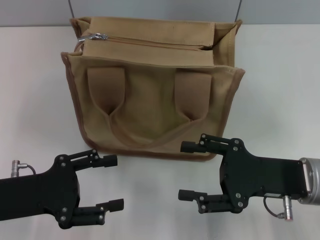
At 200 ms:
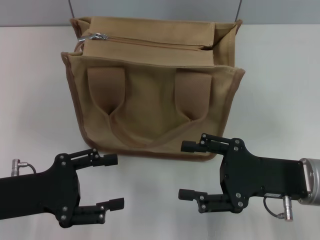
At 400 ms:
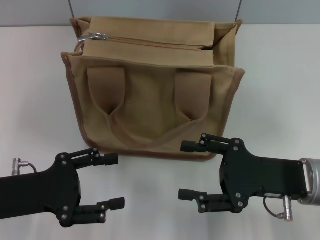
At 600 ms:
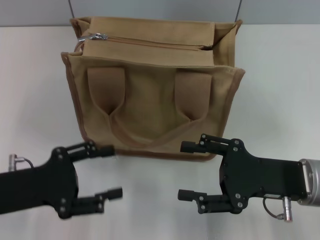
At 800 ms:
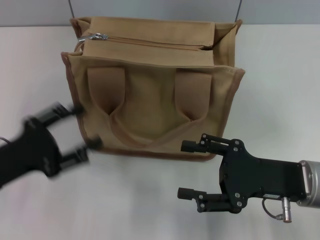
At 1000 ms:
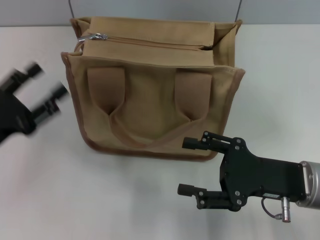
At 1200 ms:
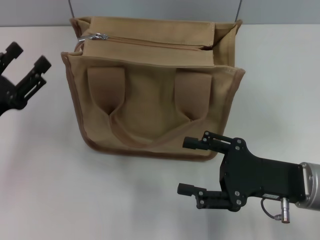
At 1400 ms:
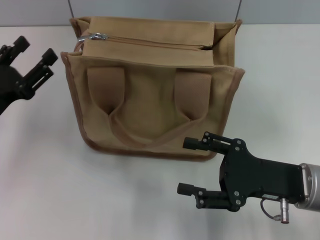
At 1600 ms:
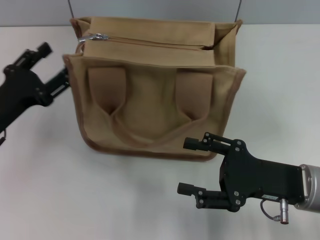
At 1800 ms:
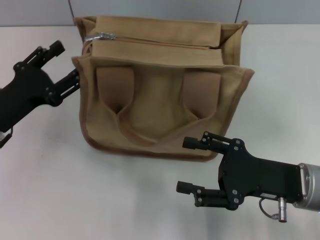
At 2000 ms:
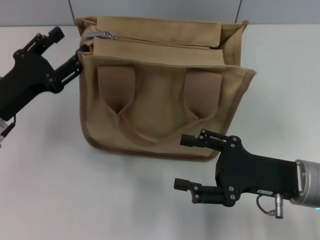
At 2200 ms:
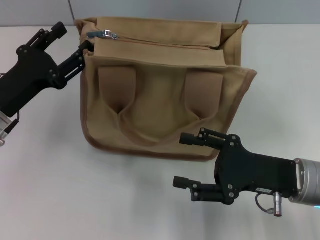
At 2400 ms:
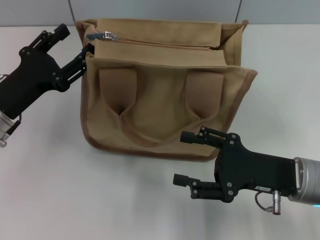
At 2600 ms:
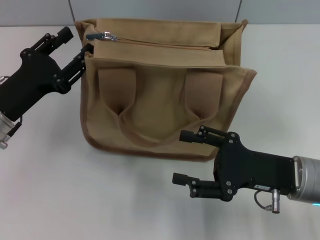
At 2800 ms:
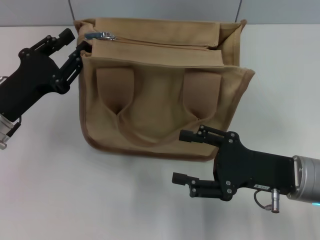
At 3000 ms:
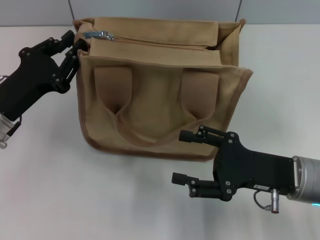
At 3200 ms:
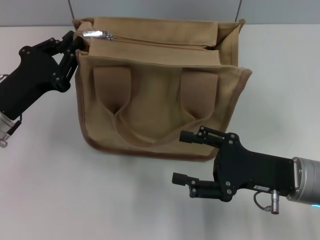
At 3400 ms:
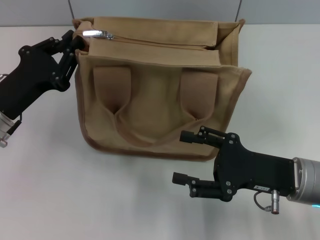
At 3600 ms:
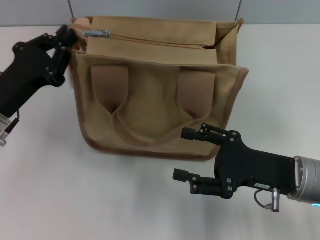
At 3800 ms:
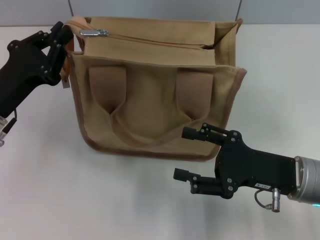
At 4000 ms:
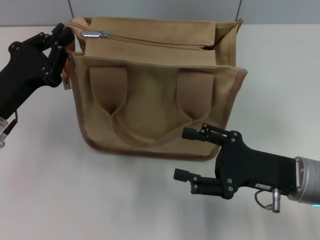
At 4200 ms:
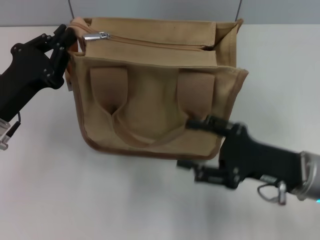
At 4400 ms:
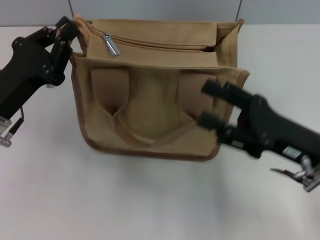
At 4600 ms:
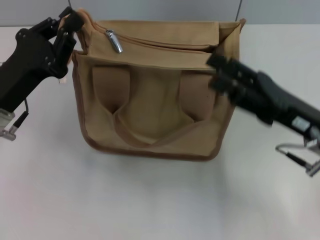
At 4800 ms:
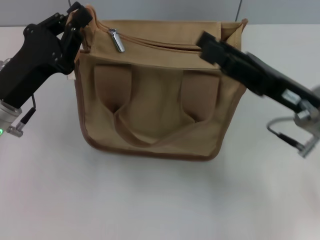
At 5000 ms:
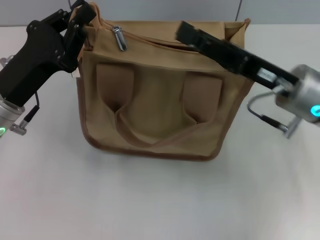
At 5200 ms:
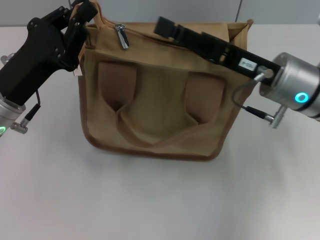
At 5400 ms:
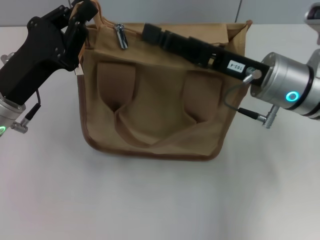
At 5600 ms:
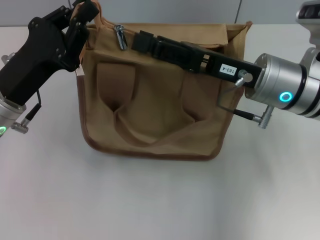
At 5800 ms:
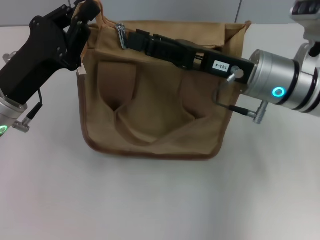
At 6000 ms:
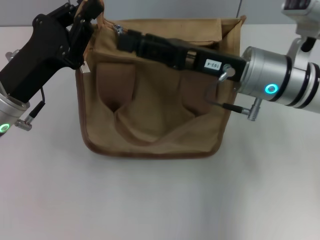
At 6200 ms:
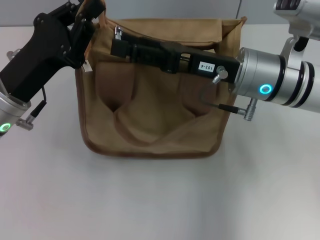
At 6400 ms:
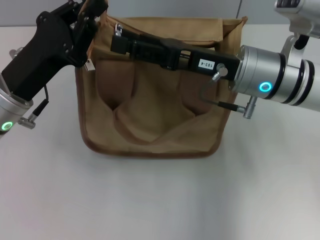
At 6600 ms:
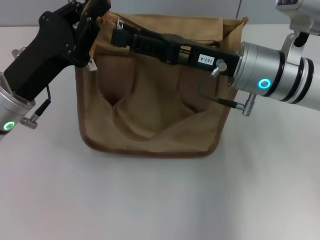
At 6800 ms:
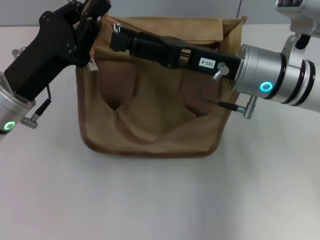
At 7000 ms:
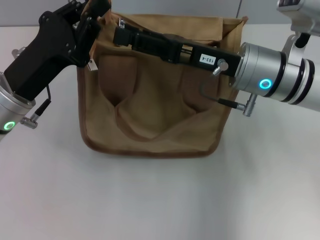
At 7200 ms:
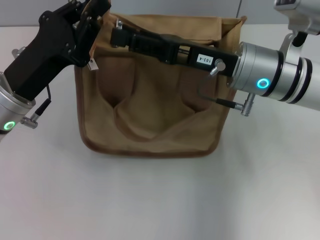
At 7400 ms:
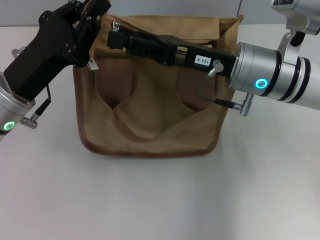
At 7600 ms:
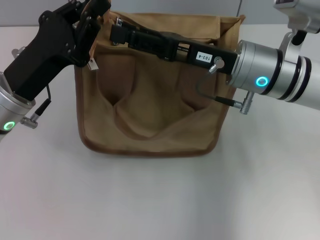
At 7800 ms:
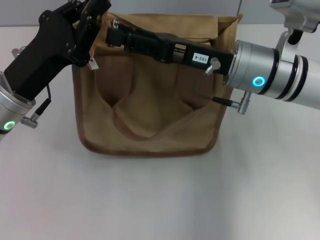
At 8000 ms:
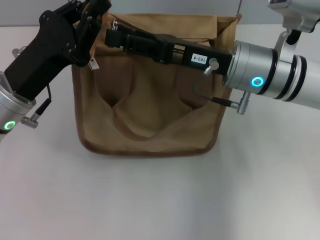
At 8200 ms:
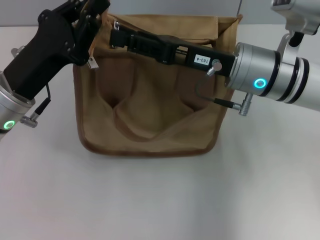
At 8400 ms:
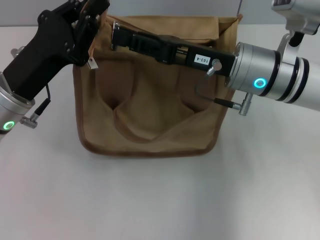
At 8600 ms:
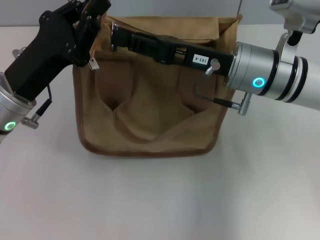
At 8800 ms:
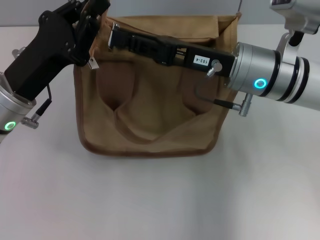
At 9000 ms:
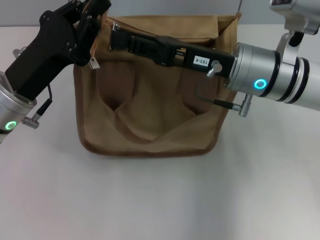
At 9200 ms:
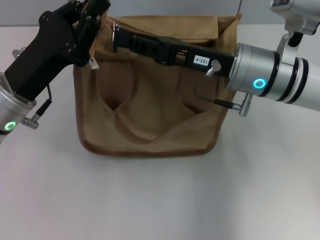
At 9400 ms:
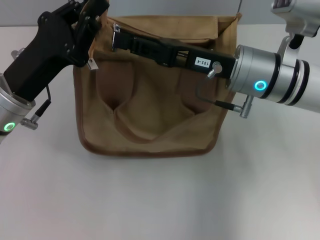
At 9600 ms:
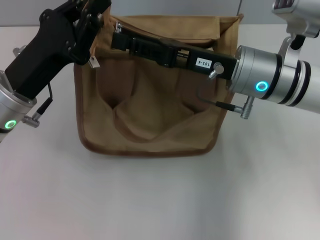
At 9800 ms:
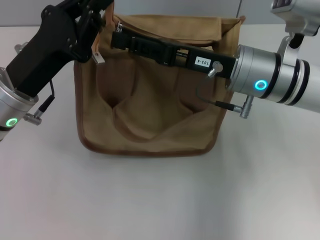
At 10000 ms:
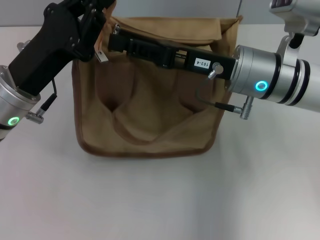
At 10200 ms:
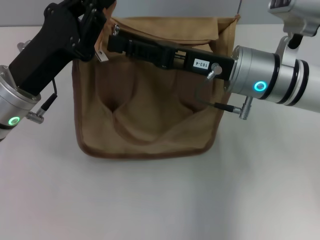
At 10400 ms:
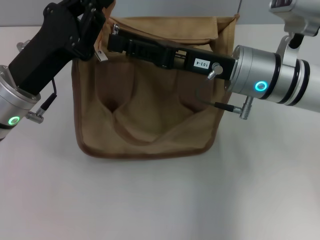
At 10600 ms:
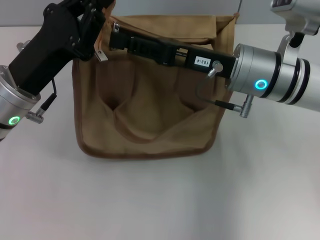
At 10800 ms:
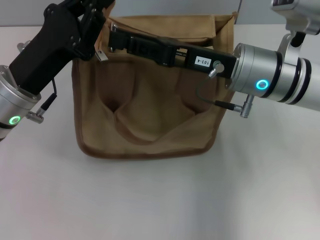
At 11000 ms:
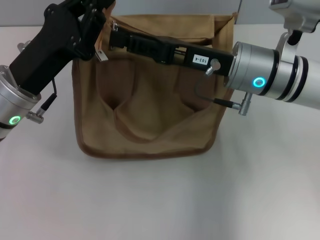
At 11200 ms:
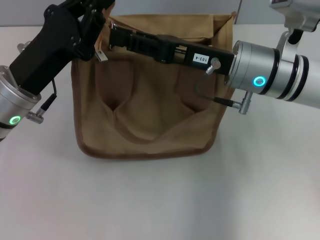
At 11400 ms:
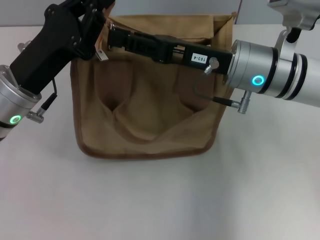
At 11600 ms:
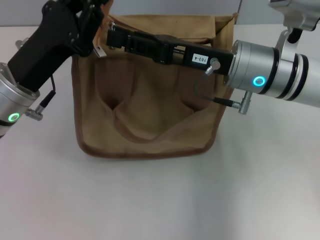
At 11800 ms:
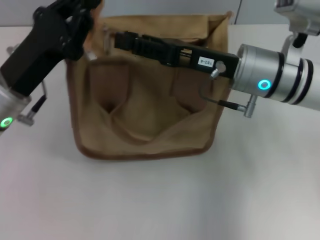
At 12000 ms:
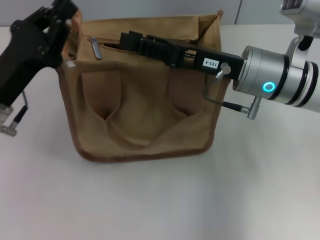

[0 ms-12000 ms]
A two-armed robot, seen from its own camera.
0 ms to 1600 ms: The left gripper is displaced forward by approximately 5 cm.
1600 ms to 3000 ms: The left gripper closes.
3000 ms to 4400 ms: The left gripper closes up.
4400 ms to 6000 ms: The right gripper moves forward, to the left and upward, approximately 15 cm.
6000 ms to 7600 ms: Both grippers stay put.
7600 ms to 9000 ms: The right gripper closes.
9000 ms to 10400 ms: Both grippers stay put.

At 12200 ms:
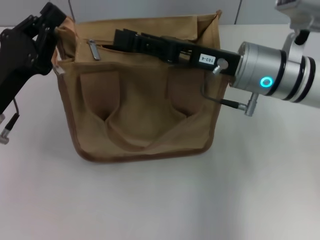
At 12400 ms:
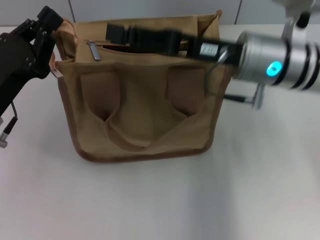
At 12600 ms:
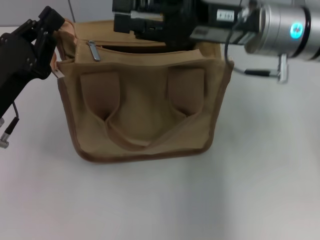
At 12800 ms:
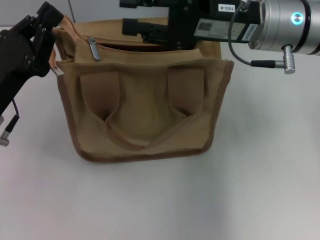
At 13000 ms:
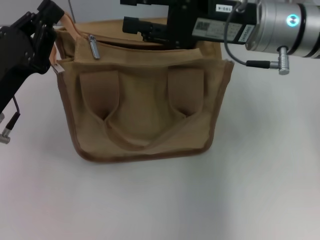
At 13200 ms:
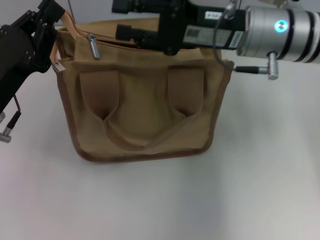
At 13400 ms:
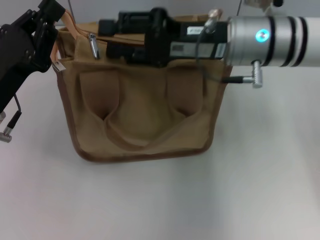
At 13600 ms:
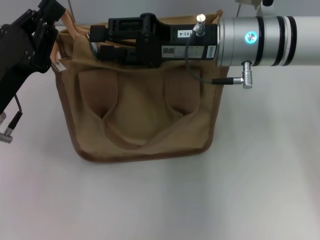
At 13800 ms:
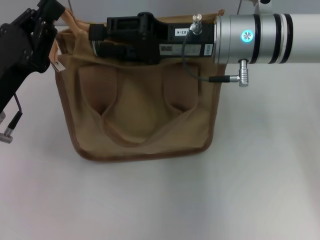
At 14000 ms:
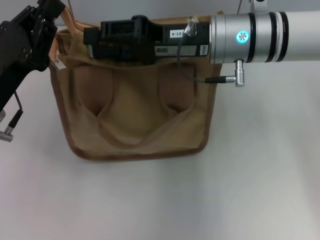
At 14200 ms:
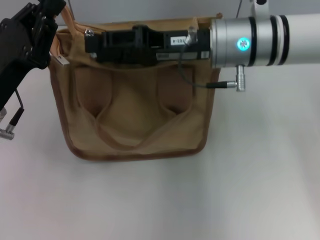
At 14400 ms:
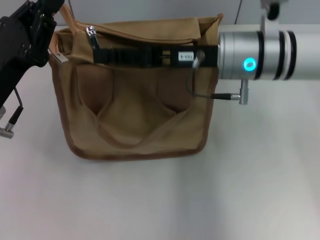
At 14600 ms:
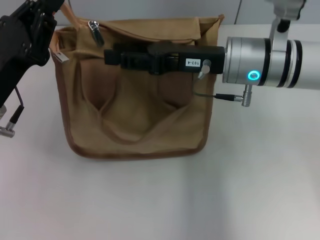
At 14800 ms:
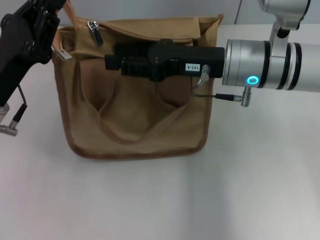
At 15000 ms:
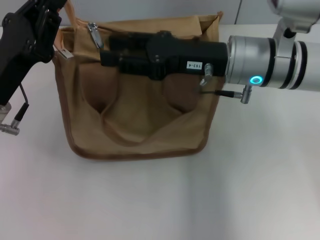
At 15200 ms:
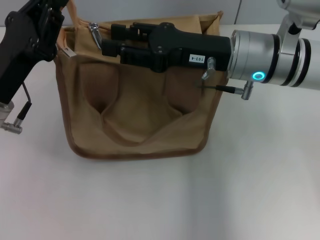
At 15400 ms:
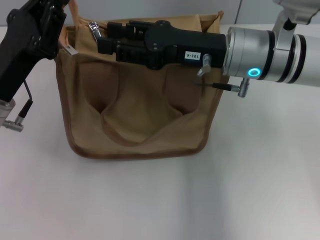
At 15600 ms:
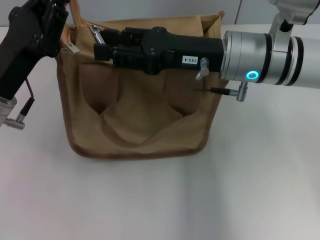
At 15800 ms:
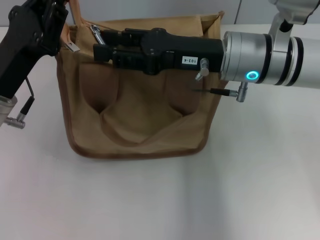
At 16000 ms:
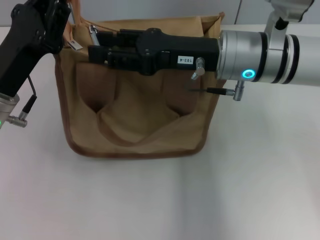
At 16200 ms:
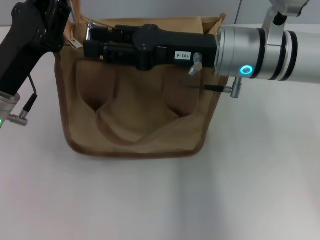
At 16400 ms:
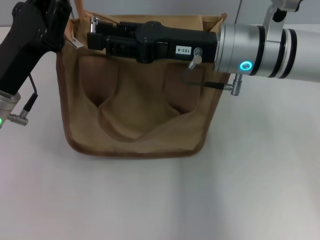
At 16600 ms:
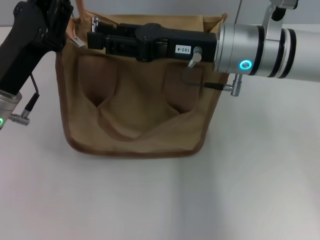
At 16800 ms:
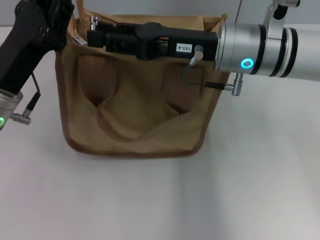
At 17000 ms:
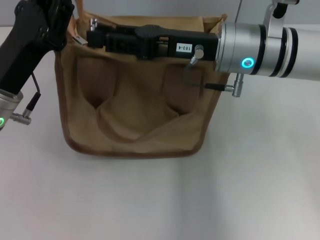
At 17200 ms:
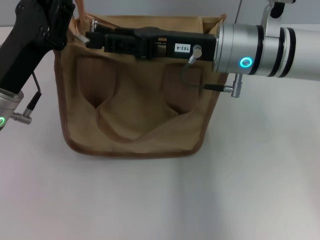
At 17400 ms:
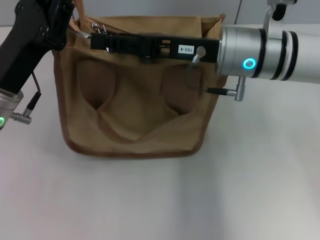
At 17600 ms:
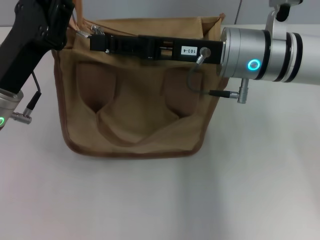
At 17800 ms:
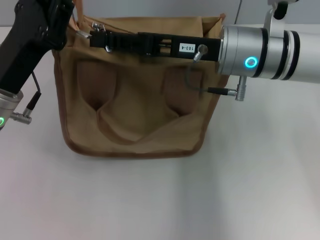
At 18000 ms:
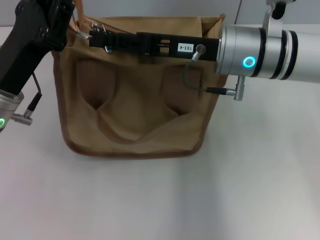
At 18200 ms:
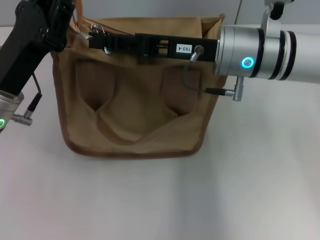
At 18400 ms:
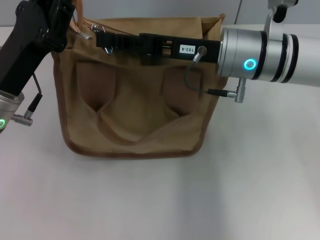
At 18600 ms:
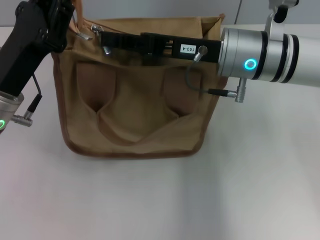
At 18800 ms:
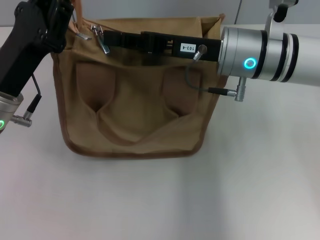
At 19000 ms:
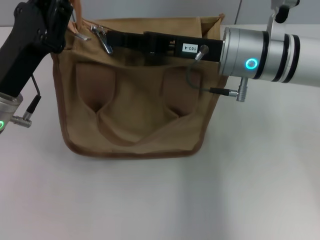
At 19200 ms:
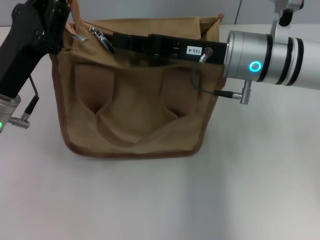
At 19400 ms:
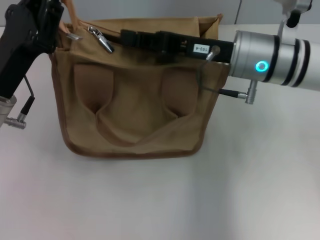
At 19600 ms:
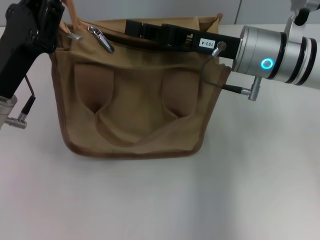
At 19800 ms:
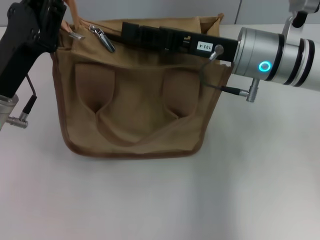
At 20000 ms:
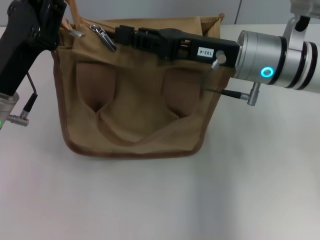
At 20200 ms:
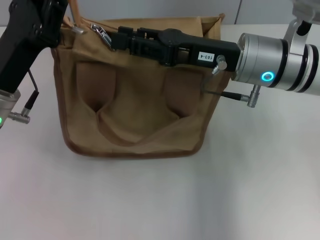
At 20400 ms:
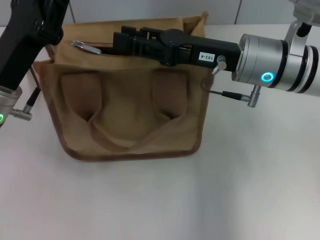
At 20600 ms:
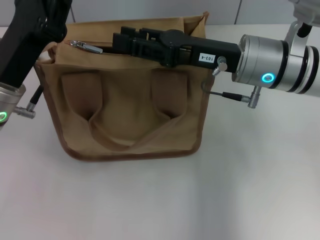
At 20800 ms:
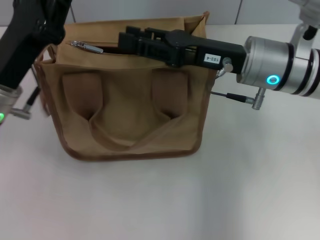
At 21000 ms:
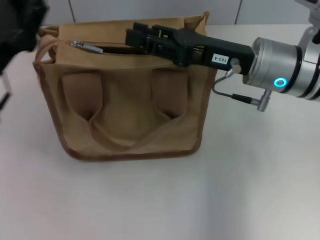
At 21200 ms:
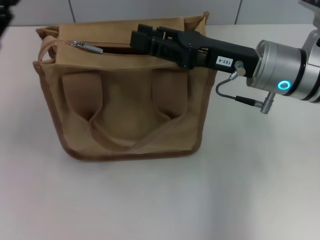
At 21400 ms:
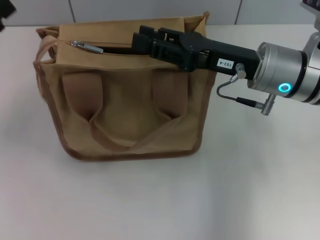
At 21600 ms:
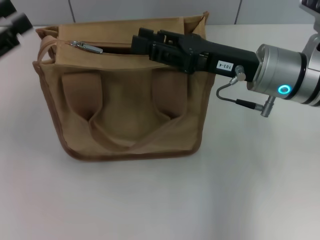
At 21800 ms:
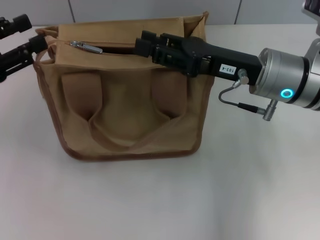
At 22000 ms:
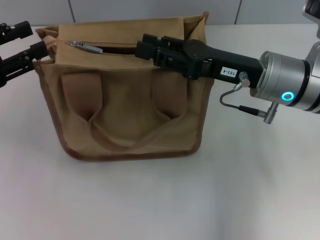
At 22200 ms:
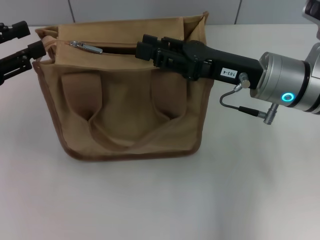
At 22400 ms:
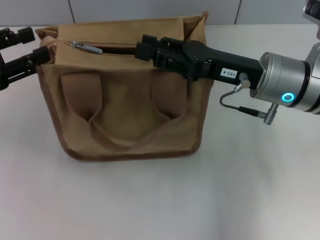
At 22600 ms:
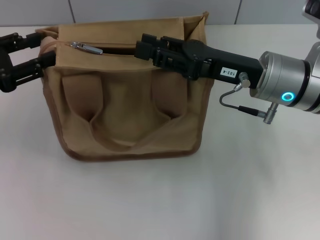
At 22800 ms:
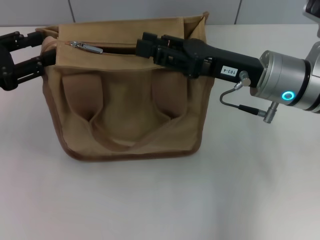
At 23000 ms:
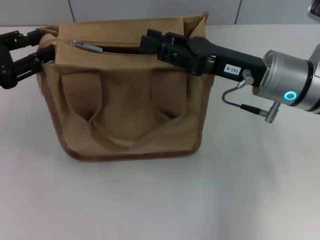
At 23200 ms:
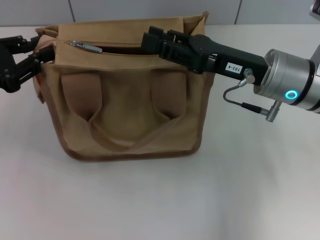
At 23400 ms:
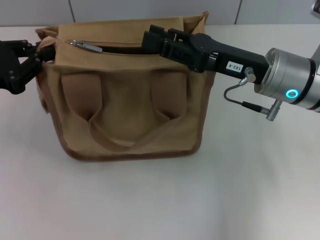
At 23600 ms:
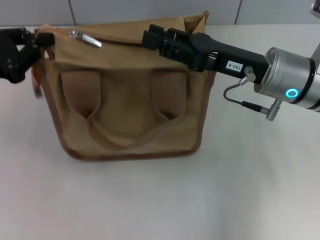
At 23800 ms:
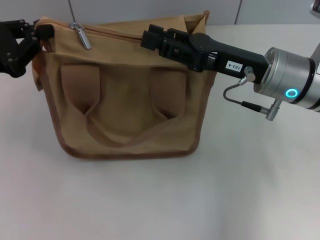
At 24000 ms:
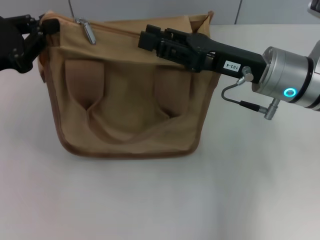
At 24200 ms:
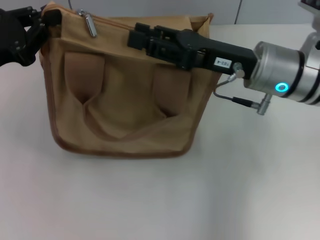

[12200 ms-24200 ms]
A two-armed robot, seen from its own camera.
12200 ms to 13800 ms: The right gripper moves some 5 cm.
15200 ms to 16600 ms: The grippers move only a little.
16600 ms to 18200 ms: The grippers stay close to where they were, moving slightly.
18200 ms to 19800 ms: The right gripper closes its fingers.
19800 ms to 21200 ms: The left gripper travels to the left by approximately 10 cm. The right gripper opens up.
21200 ms to 22600 ms: The left gripper opens its fingers.
22600 ms to 24200 ms: The left gripper closes its fingers.
